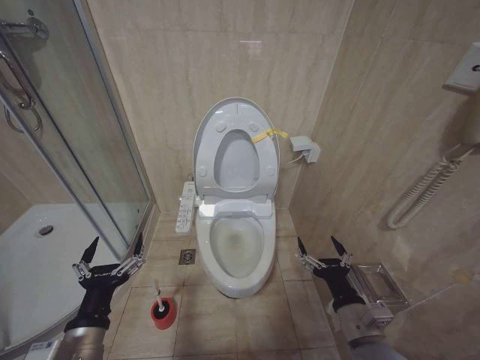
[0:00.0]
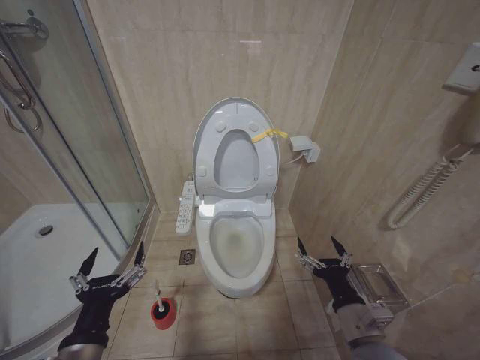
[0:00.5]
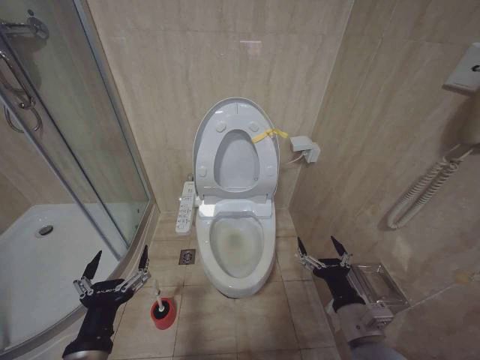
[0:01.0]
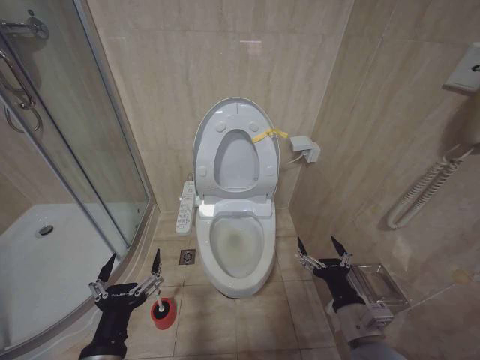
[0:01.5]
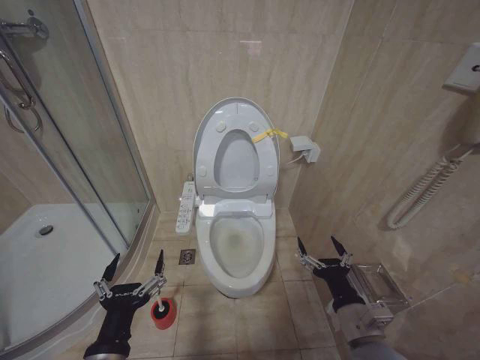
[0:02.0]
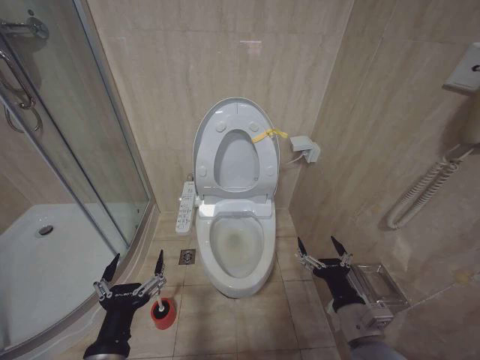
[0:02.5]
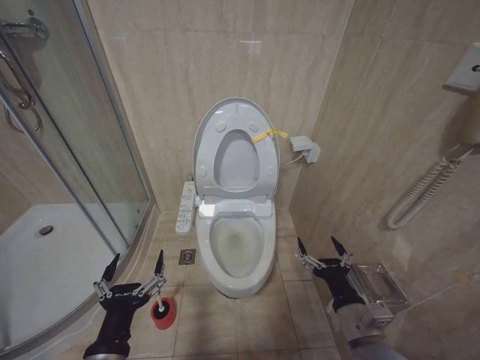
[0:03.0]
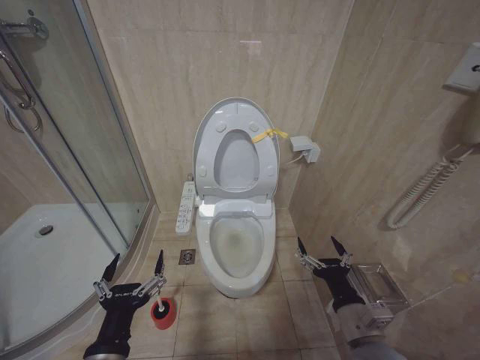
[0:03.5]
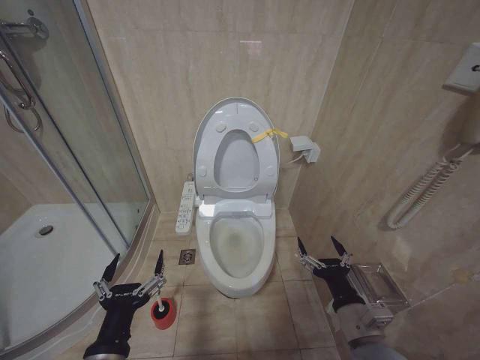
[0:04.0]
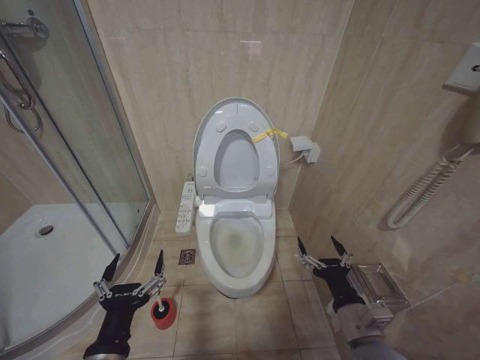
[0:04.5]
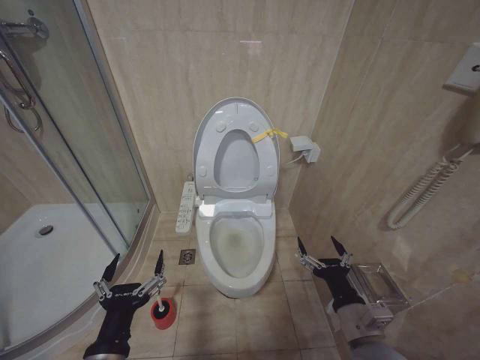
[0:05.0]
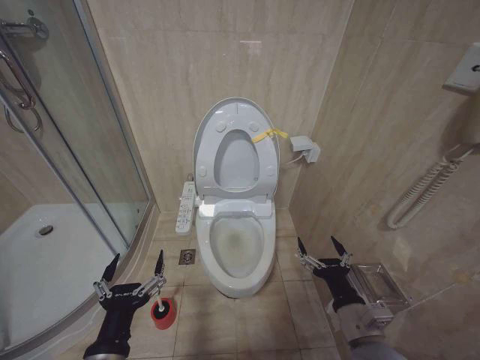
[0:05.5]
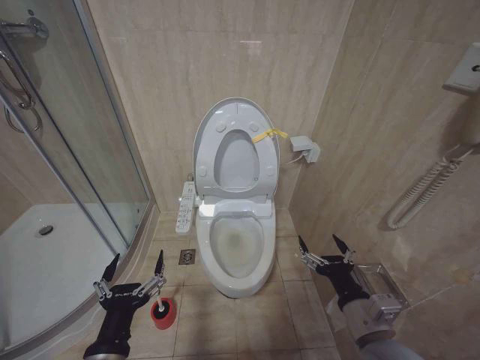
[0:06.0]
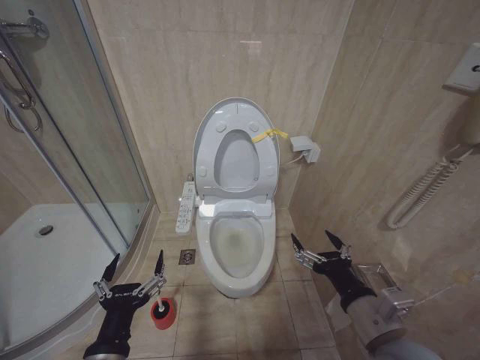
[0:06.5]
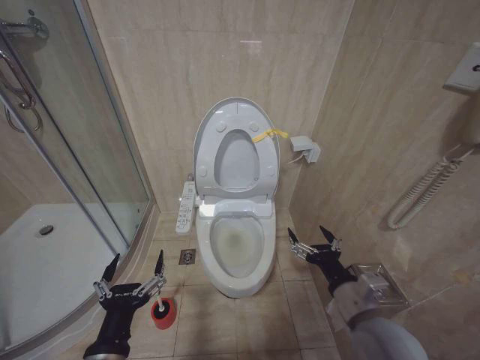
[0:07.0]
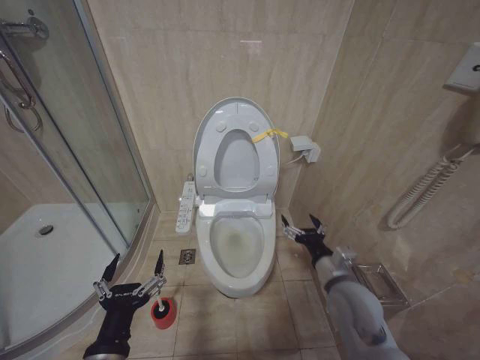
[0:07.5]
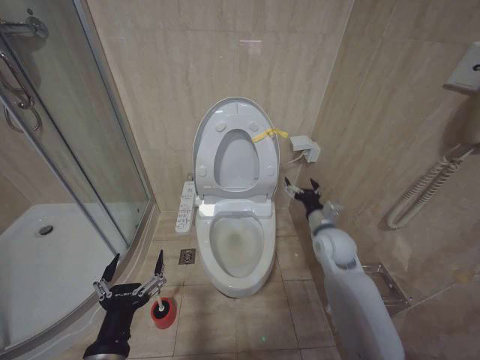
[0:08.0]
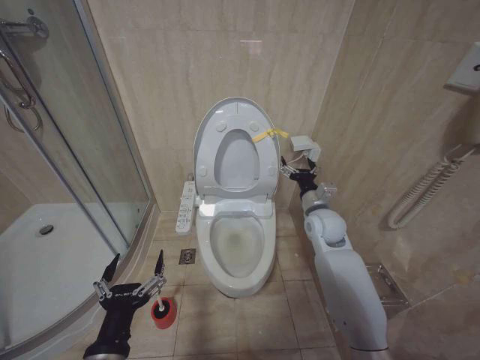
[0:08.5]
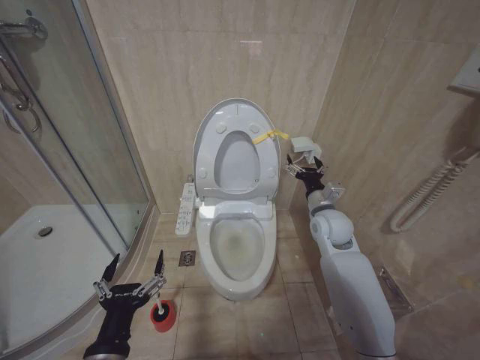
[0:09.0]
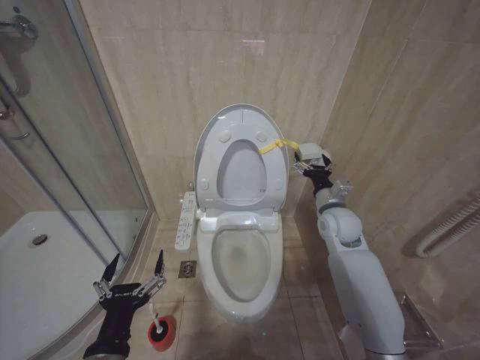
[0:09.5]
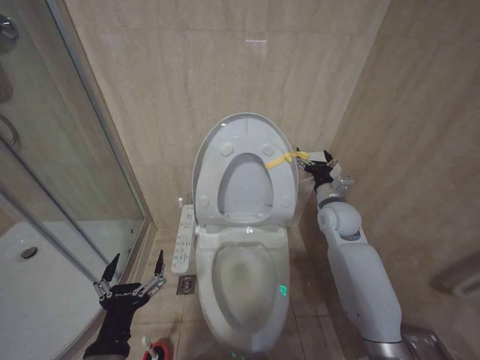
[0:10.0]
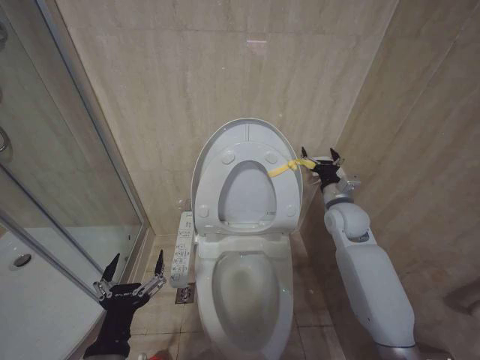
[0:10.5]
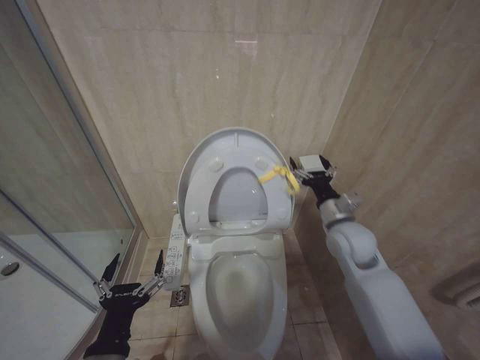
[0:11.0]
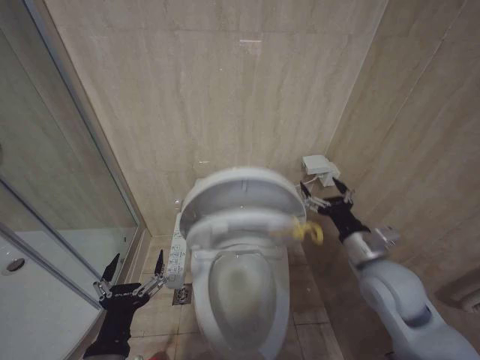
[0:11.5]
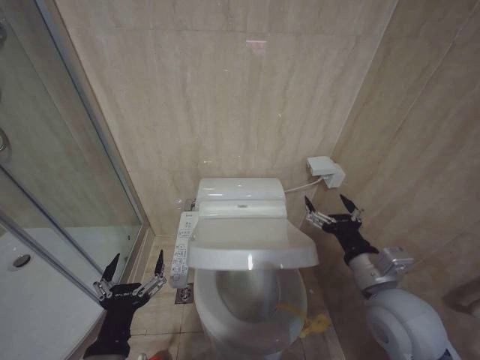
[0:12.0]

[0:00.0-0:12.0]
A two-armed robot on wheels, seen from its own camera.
Task of the whole recording: Open the toilet lid, clean the toilet bowl with a toilet brush, close the toilet lid, and flush.
0:00.0 to 0:02.0: The left gripper heads to the right, covering approximately 5 cm.
0:02.0 to 0:04.0: Both grippers stay about where they are.
0:06.0 to 0:08.0: The right gripper moves forward, roughly 20 cm.
0:08.0 to 0:10.0: The right gripper shifts approximately 10 cm upward and forward.
0:10.0 to 0:12.0: The right gripper travels backward by approximately 25 cm.

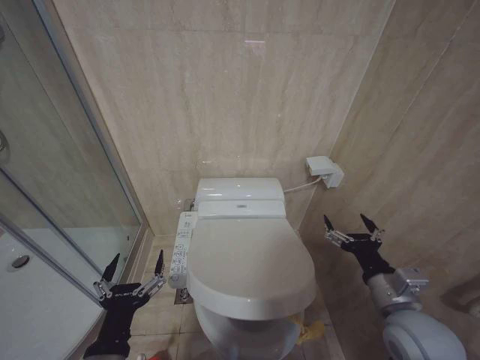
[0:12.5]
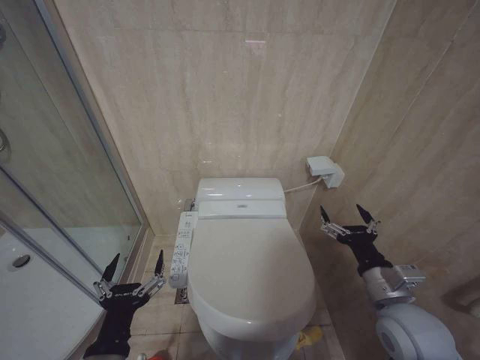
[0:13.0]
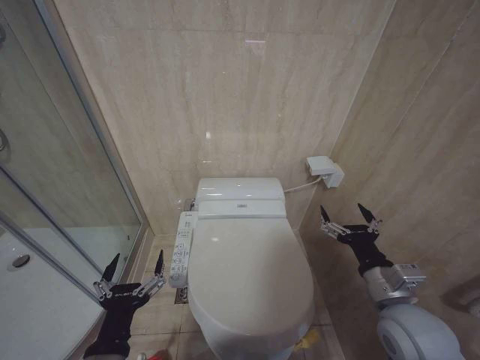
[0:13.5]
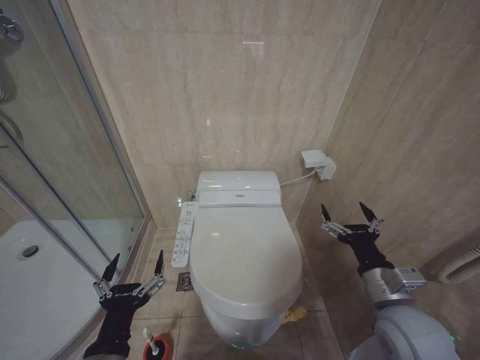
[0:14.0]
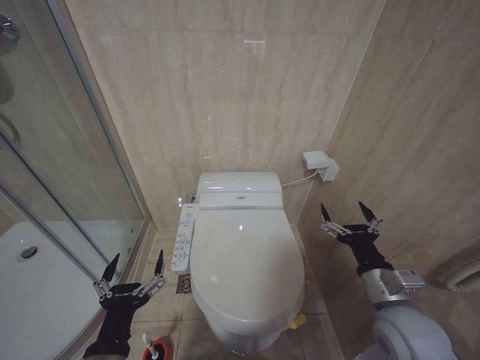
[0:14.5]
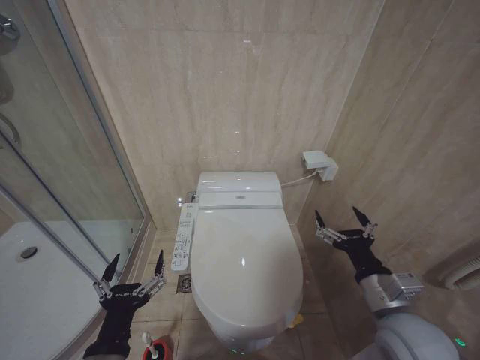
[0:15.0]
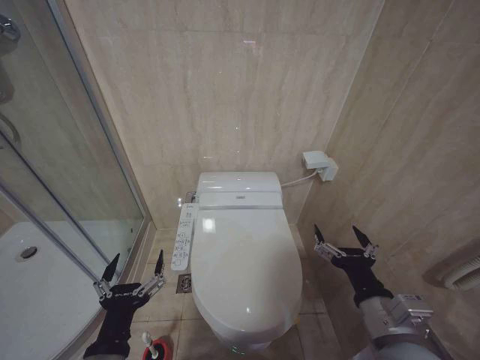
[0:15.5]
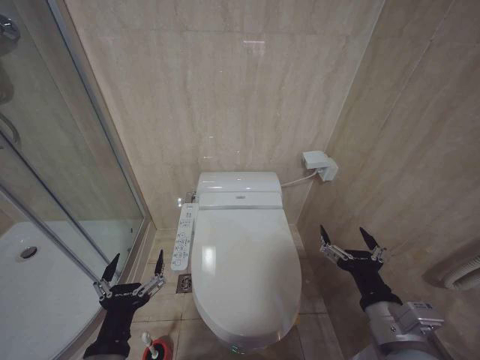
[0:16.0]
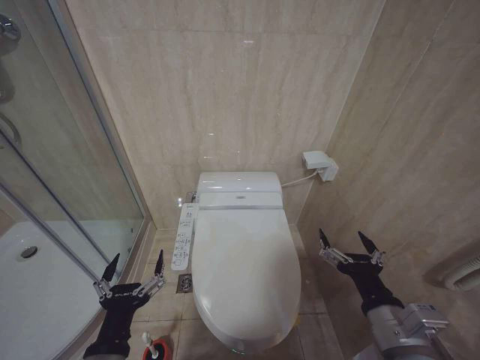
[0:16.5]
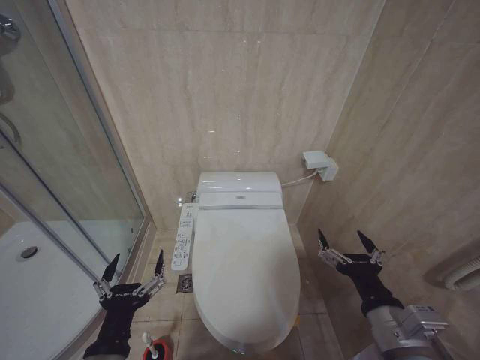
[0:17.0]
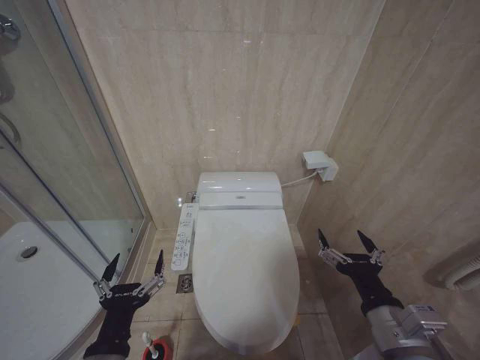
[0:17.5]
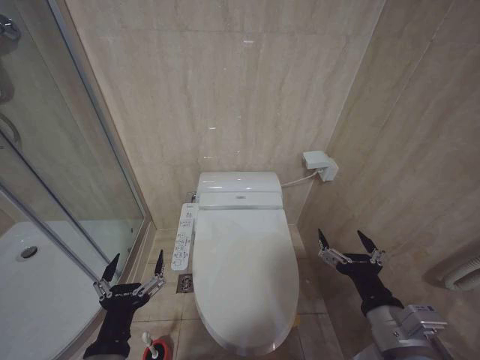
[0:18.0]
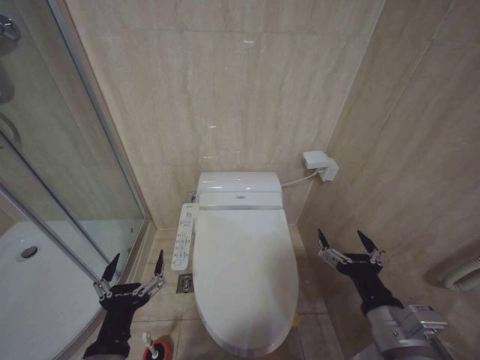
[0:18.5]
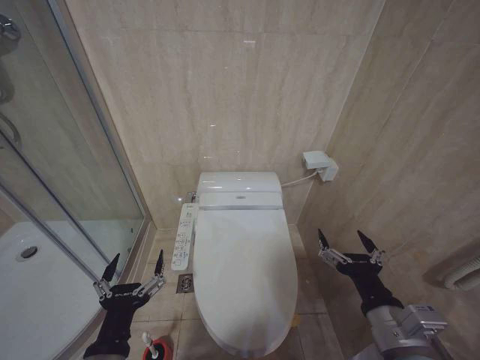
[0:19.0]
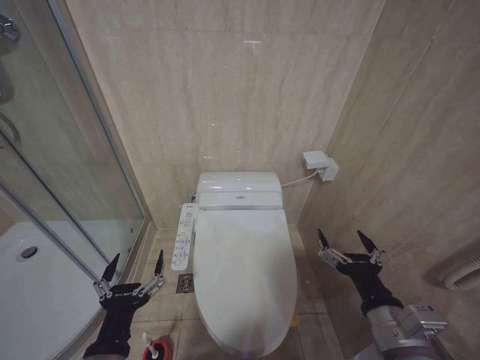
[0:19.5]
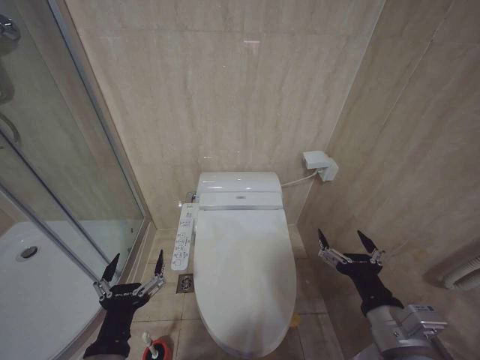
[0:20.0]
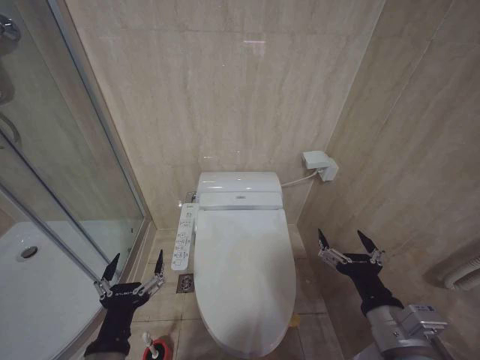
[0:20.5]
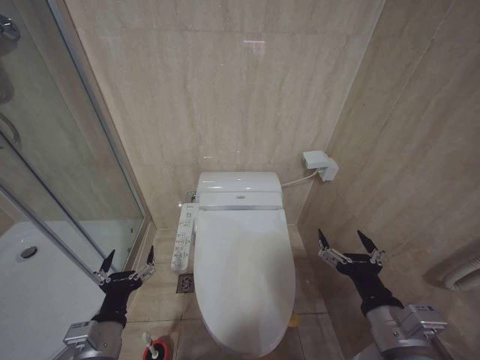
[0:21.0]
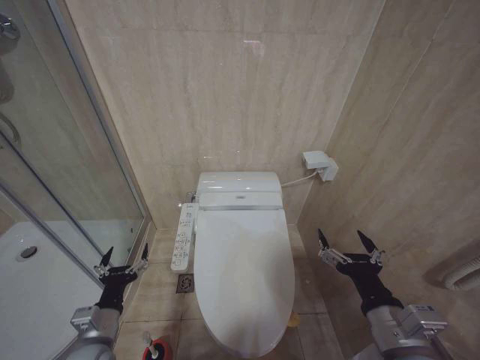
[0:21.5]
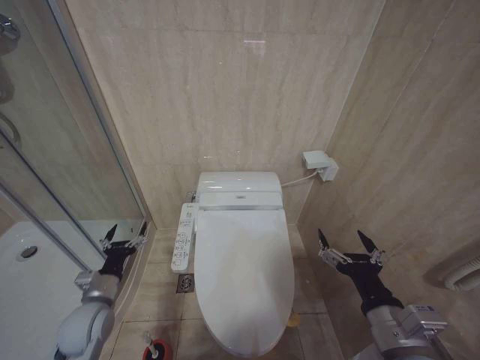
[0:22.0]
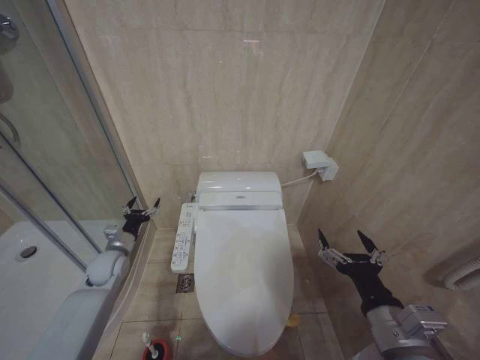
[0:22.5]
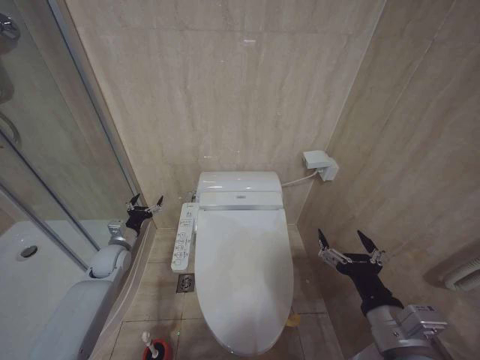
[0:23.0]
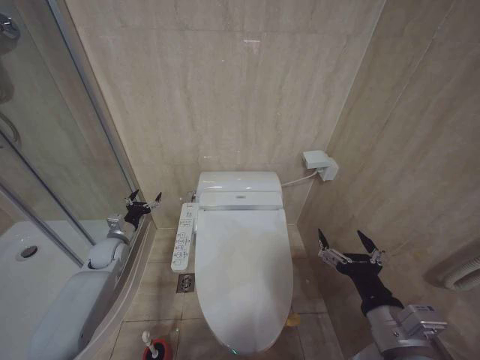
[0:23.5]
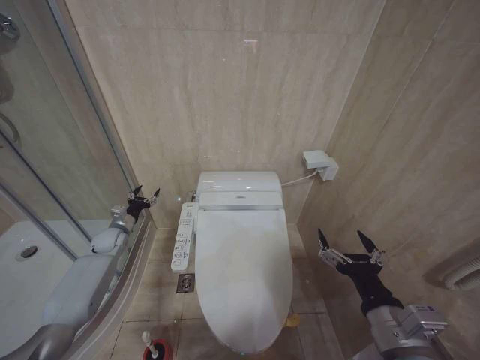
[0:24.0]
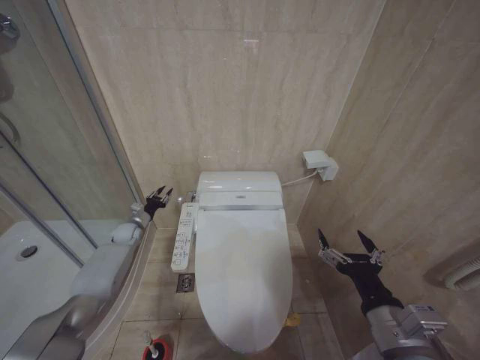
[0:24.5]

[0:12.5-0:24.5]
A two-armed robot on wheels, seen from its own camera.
Task of the whole recording: Open the toilet lid, clean the toilet bowl with a toilet brush, close the toilet lid, and flush.
0:12.5 to 0:14.5: The grippers make only small movements.
0:14.5 to 0:16.5: The right gripper is displaced backward by approximately 5 cm.
0:16.5 to 0:20.5: The two grippers keep their place.
0:20.5 to 0:22.5: The left gripper is displaced forward and to the left by some 35 cm.
0:22.5 to 0:24.5: The left gripper travels forward by approximately 15 cm, and closes its fingers.

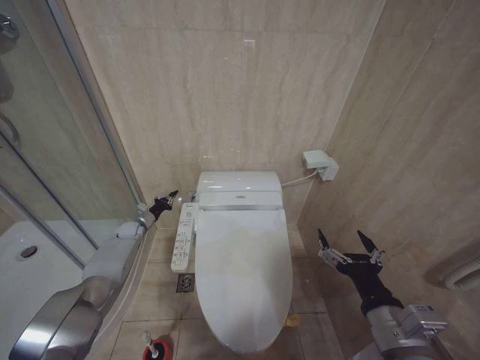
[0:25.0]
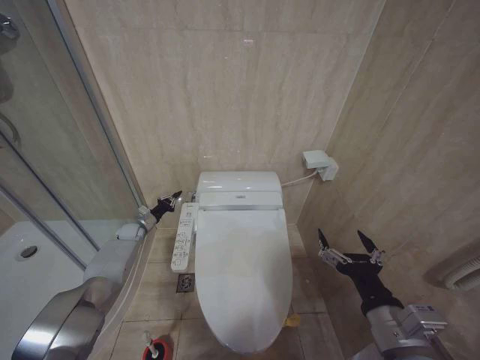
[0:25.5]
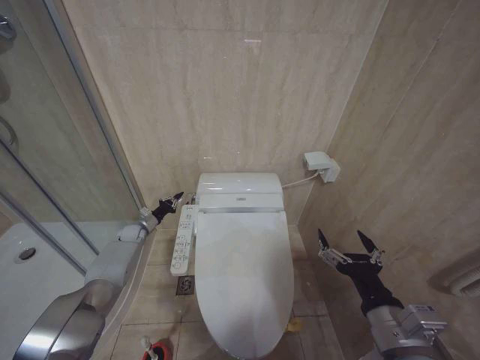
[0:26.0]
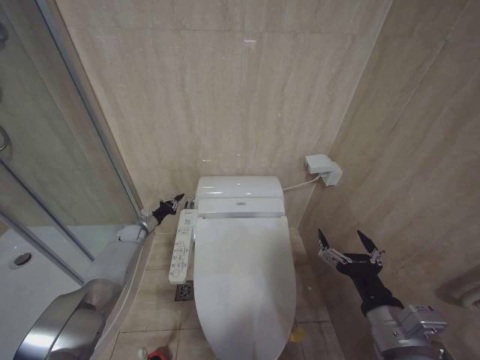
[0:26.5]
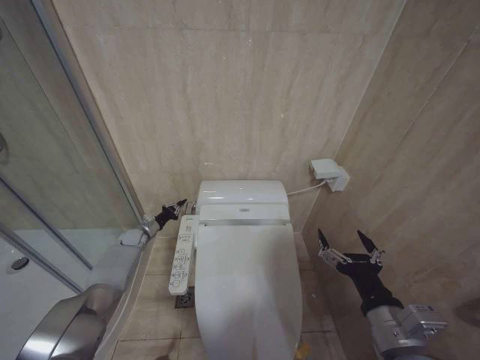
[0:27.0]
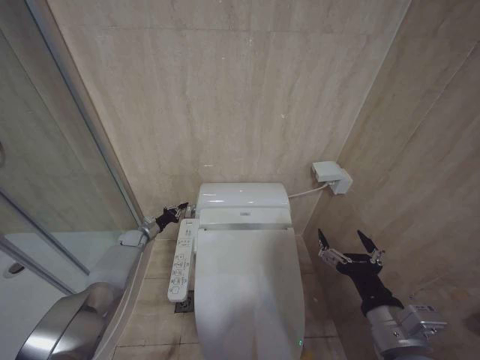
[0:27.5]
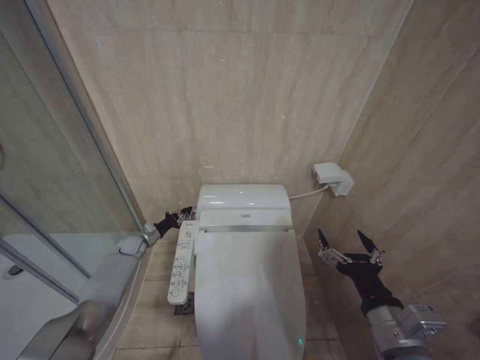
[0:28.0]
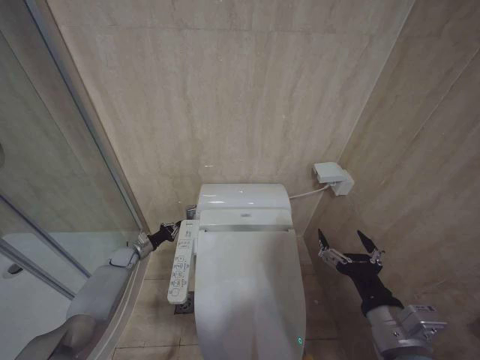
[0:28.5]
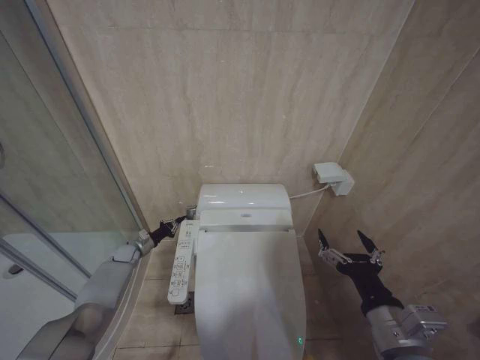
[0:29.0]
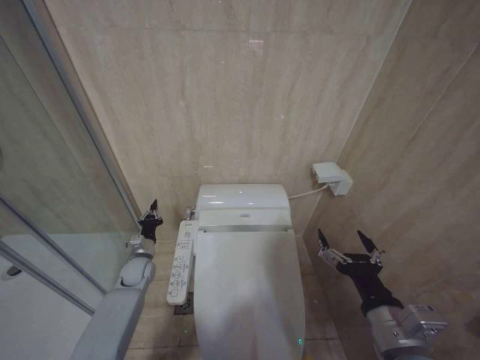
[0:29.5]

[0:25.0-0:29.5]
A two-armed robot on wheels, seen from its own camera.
Task of the whole recording: Open the toilet lid, clean the toilet bowl with a toilet brush, close the toilet lid, and flush.
0:25.0 to 0:27.0: There are only small adjustments of the grippers.
0:27.0 to 0:29.5: The left gripper moves backward, about 10 cm.
